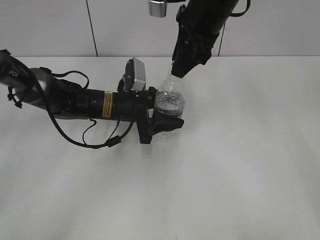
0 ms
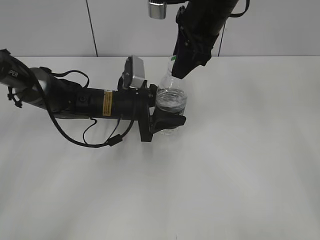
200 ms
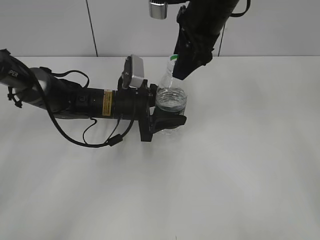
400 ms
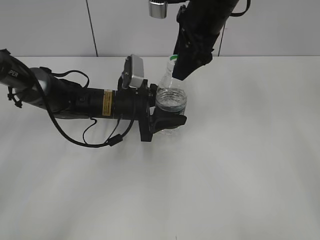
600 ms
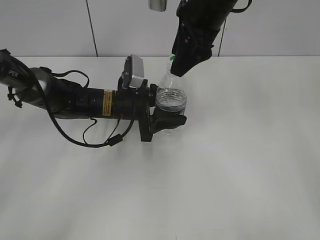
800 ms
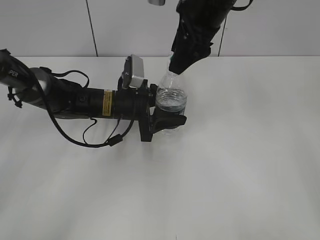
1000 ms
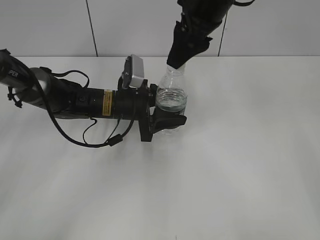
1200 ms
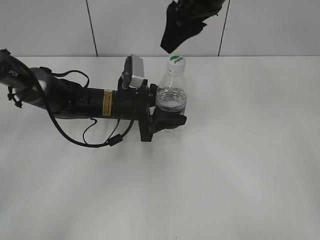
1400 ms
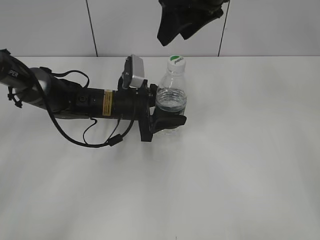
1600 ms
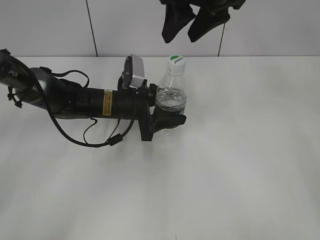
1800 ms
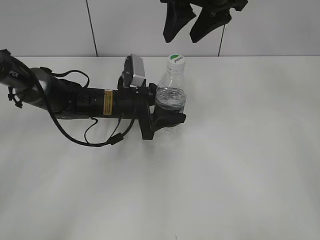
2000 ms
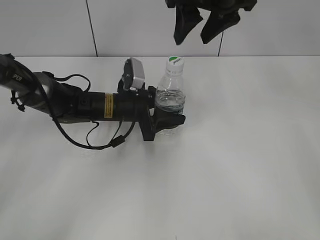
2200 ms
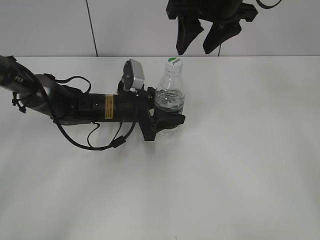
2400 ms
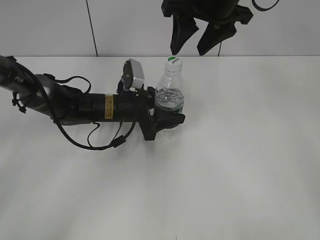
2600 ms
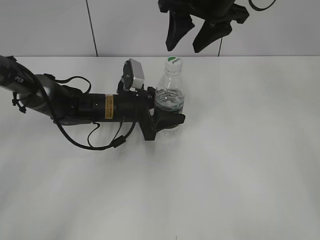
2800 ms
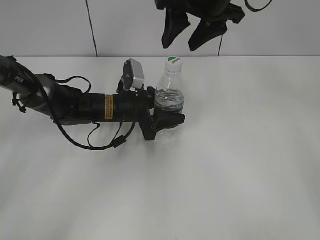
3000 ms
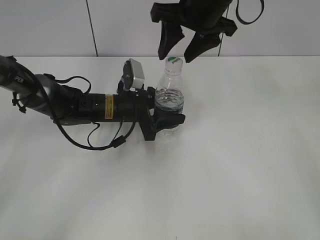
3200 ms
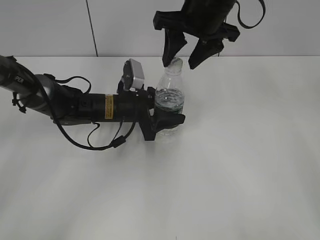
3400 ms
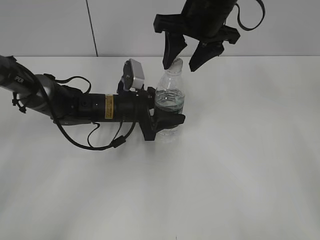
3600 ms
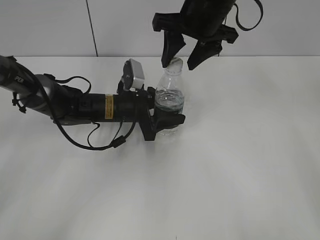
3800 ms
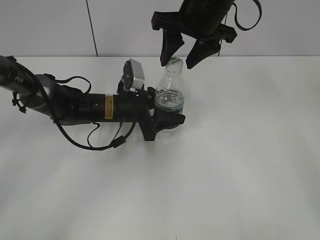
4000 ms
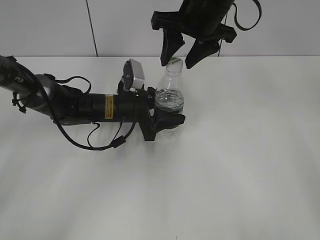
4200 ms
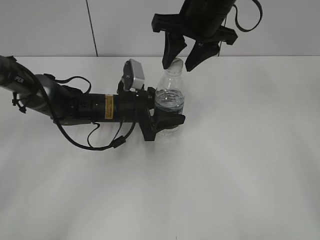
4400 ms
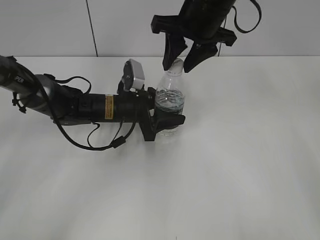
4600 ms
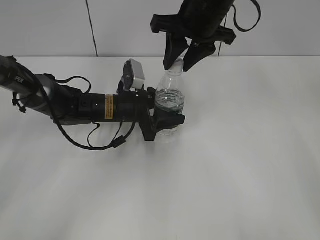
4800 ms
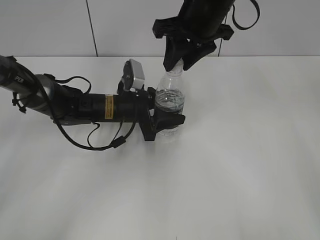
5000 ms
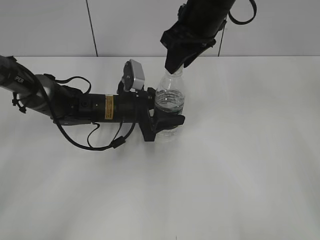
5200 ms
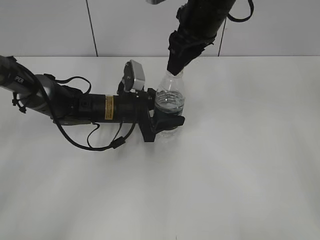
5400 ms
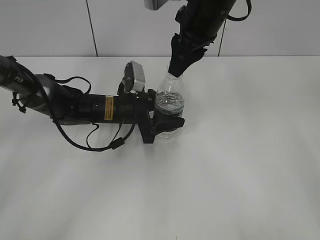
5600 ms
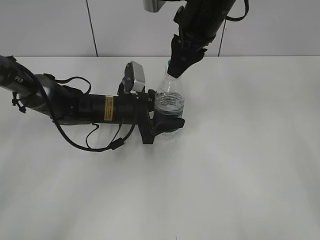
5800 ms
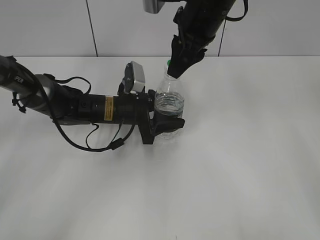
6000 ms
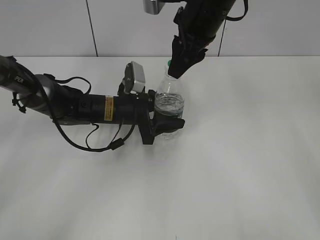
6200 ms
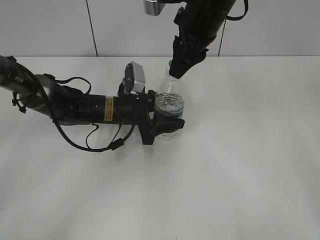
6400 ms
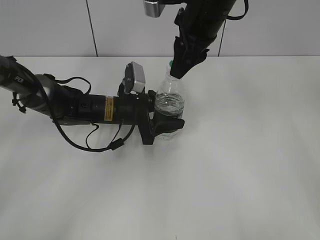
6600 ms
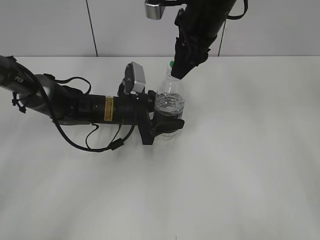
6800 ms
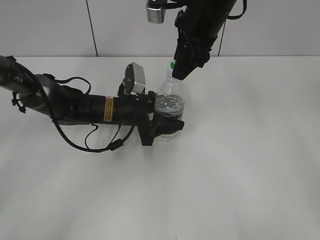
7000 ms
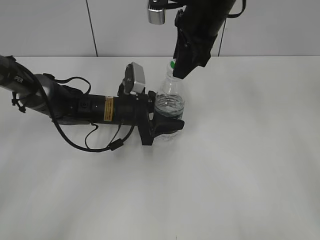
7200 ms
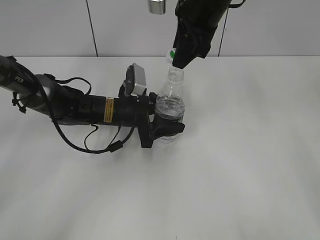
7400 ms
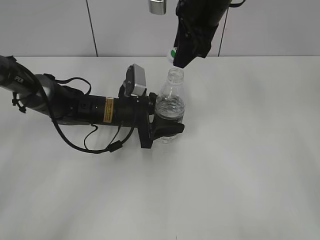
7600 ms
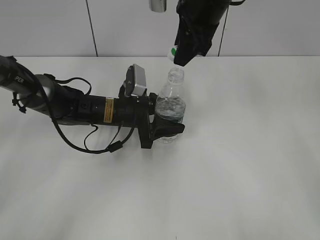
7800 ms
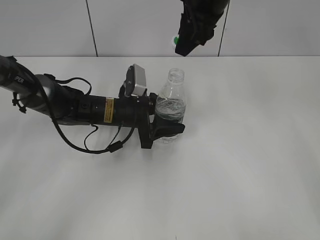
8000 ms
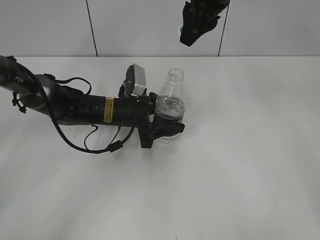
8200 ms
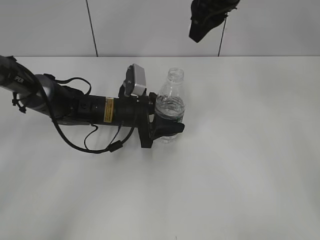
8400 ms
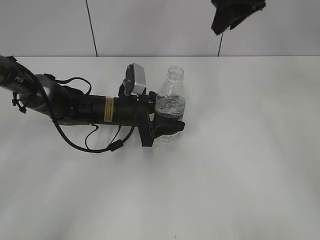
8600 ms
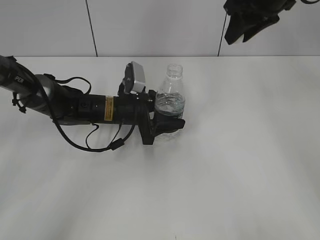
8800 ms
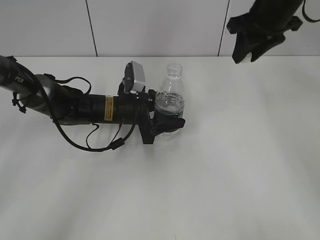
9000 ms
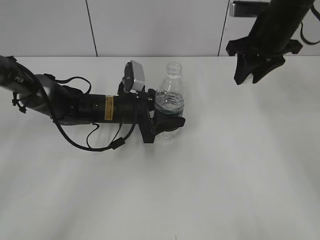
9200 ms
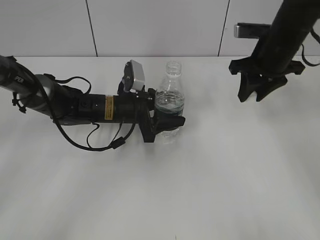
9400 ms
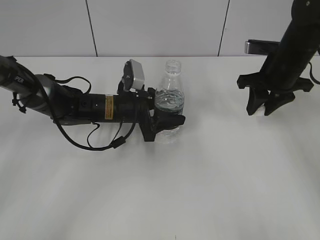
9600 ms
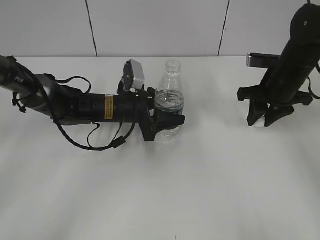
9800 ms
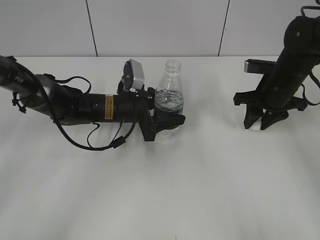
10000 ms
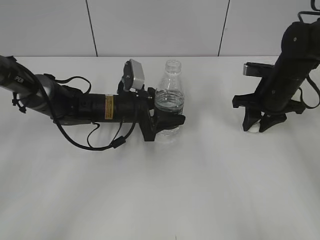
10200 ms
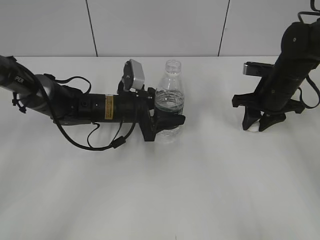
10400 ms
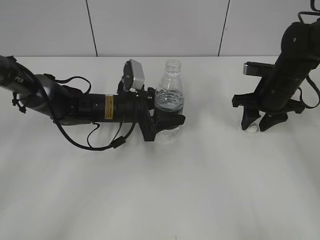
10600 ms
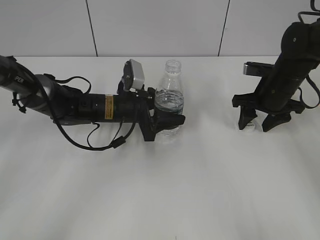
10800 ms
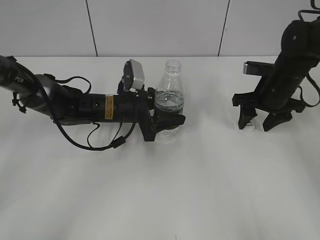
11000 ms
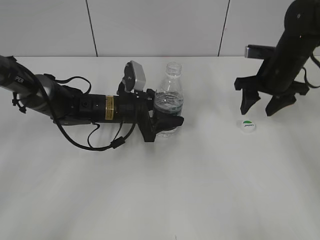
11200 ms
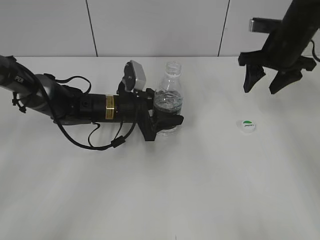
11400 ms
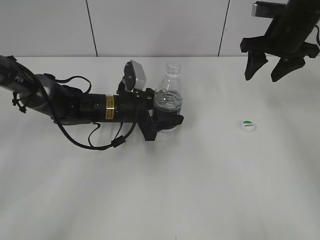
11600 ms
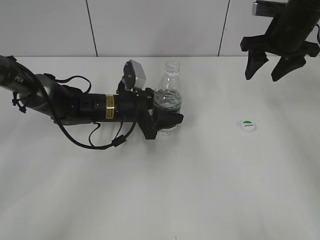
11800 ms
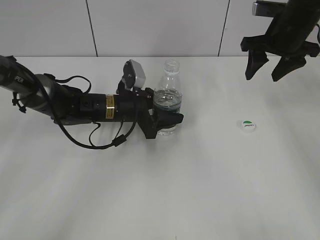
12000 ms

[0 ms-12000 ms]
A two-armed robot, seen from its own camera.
Step, 0 ms to 7600 ms: Unscrew the bottle cap with the right gripper while holding the bottle with the left gripper.
Step, 7800 ms to 11000 ms: Place the bottle cap on the table with the right gripper.
0 ms to 1600 ms: The right gripper opens its fingers.
3000 ms to 4400 ms: The grippers stay close to where they were, moving slightly.
4400 ms to 6000 ms: The right gripper closes its fingers.
6000 ms to 7600 ms: The grippers make only small movements.
7600 ms to 9000 ms: The right gripper moves to the right, approximately 10 cm.
9000 ms to 10400 ms: The right gripper moves downward, some 15 cm.
10400 ms to 12000 ms: The right gripper travels upward by approximately 10 cm, and opens.

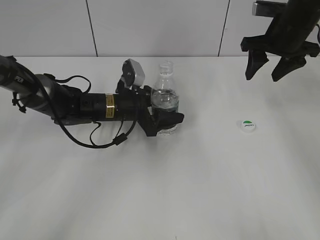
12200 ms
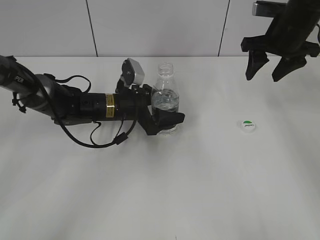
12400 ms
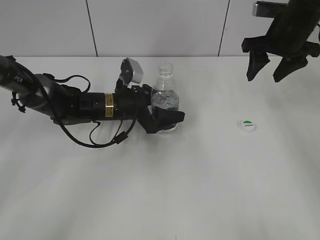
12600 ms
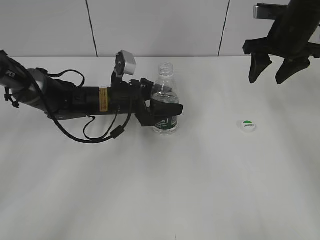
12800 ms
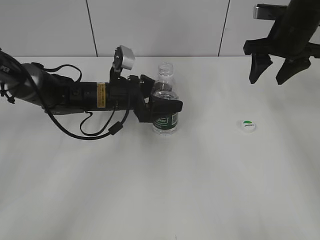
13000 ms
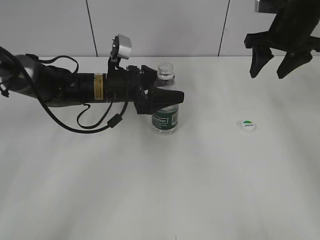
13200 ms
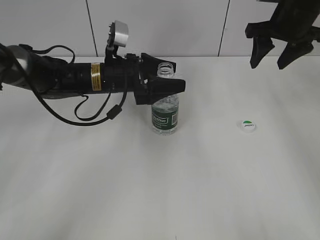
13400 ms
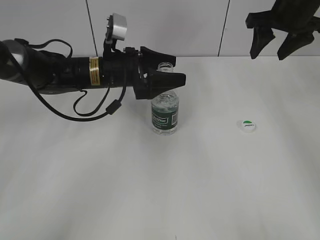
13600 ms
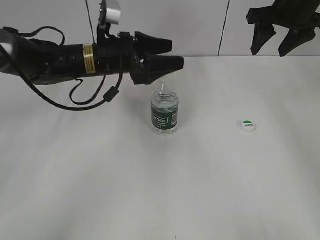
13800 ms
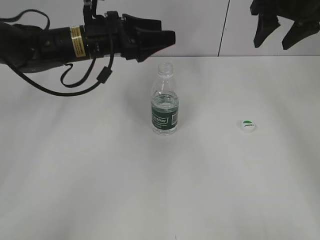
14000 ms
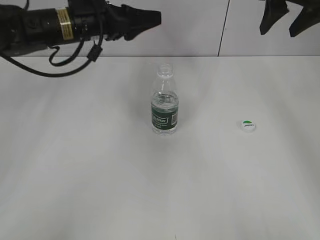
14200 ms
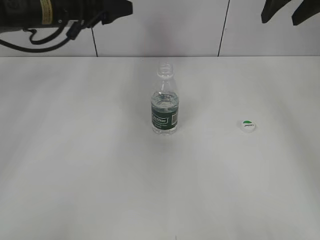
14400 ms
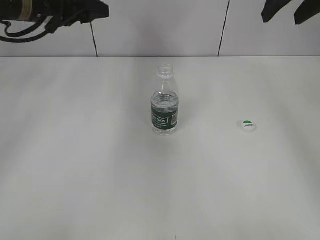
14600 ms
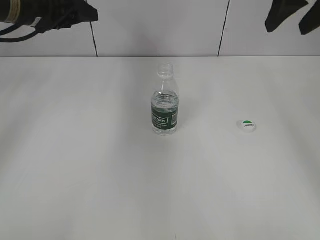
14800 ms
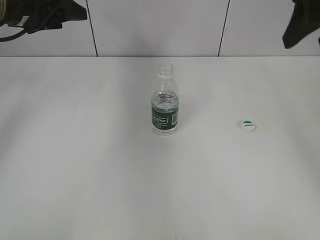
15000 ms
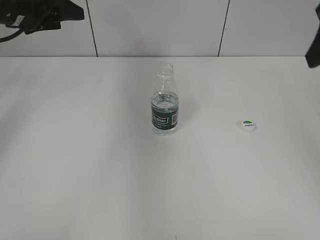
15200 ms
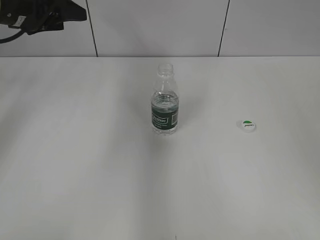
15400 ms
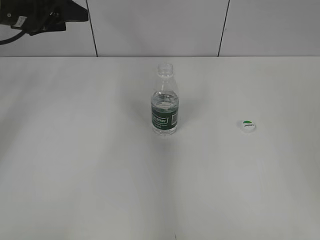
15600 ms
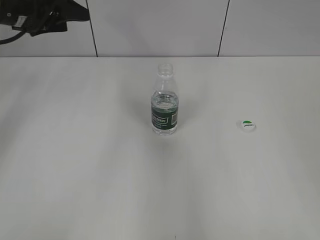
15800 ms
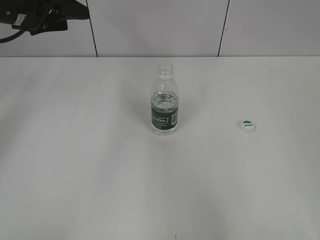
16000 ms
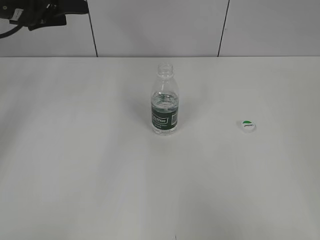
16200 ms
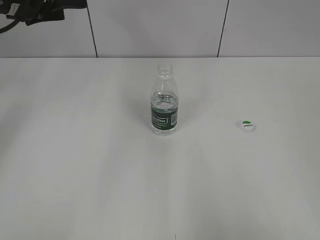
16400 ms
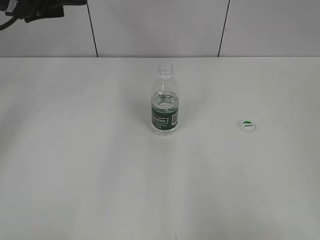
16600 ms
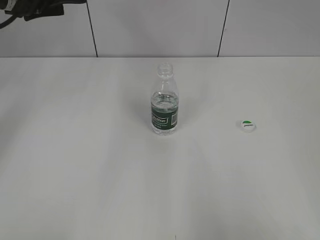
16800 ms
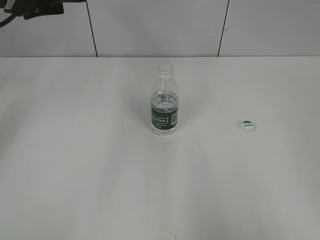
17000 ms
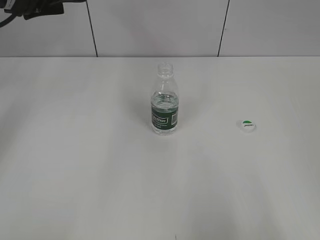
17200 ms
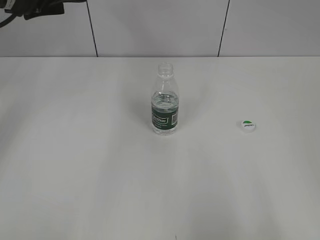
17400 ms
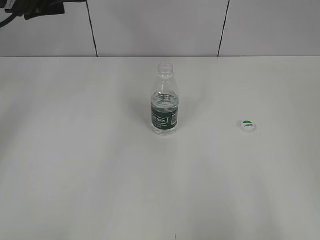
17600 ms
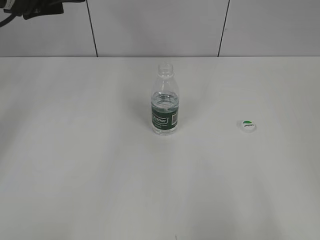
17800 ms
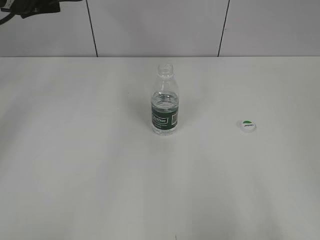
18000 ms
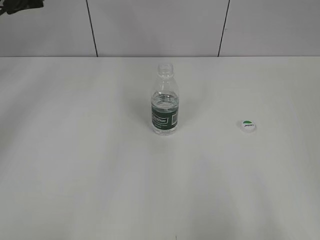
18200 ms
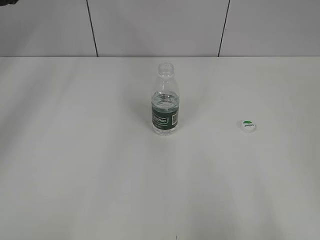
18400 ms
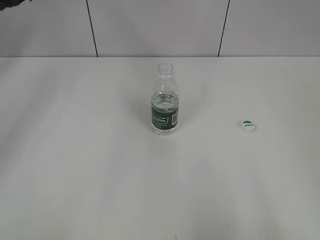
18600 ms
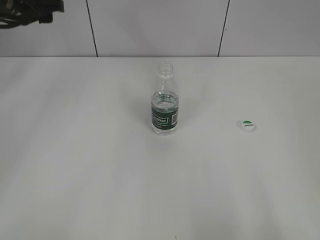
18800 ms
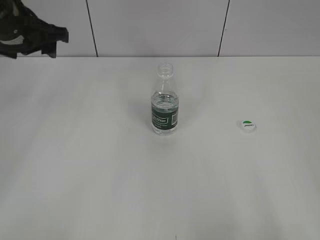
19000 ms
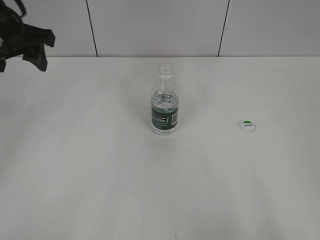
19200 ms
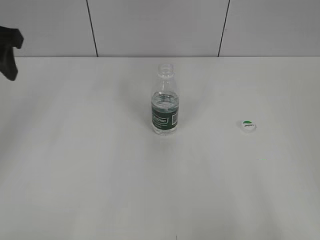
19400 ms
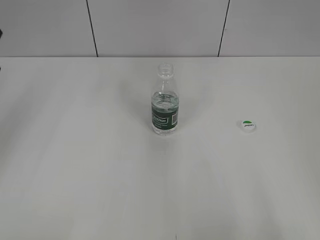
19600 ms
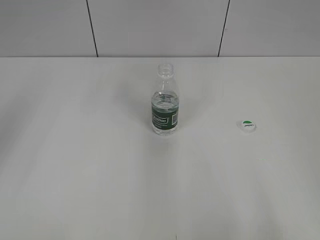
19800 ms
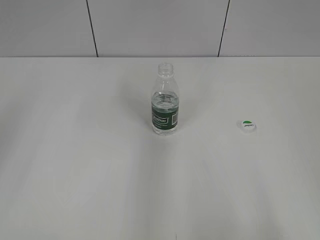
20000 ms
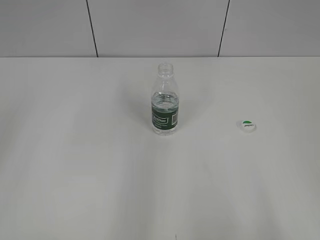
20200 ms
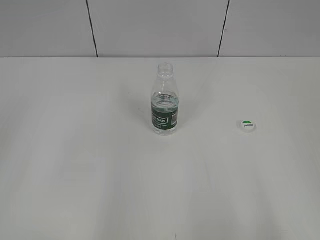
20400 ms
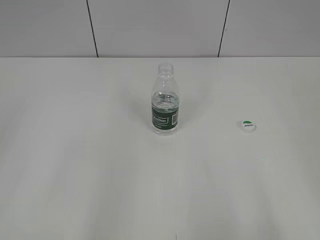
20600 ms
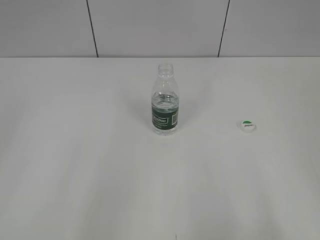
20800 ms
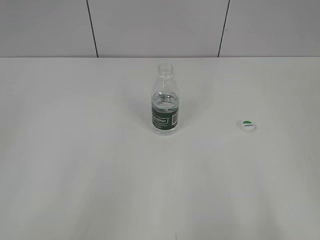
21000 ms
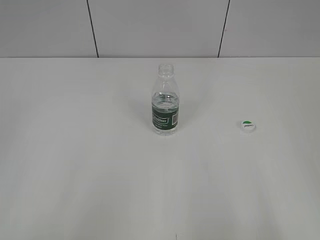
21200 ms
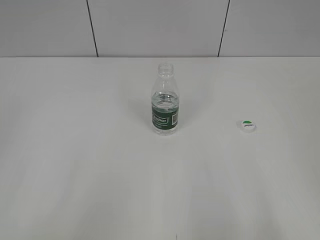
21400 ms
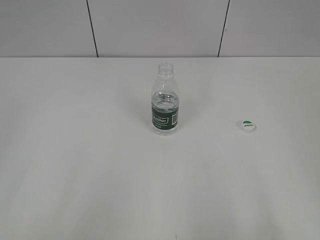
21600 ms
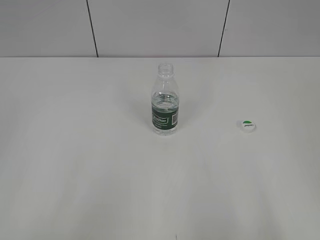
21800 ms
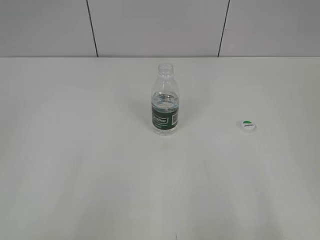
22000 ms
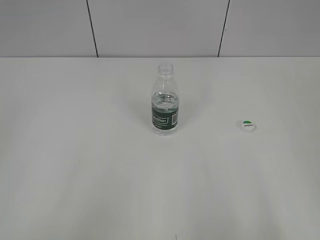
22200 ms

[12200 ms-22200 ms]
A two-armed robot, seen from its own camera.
12200 ms to 13600 ms: The left gripper is displaced upward by some 10 cm, and opens.
13600 ms to 15000 ms: The left gripper travels to the left and upward by about 20 cm, while the right gripper shifts approximately 15 cm backward and upward.
15000 ms to 16400 ms: The right gripper is displaced backward by about 30 cm.
16400 ms to 18000 ms: The grippers move only a little.
18000 ms to 19400 ms: The left gripper travels backward by some 10 cm.
19400 ms to 20800 ms: The left gripper travels backward by about 30 cm.
